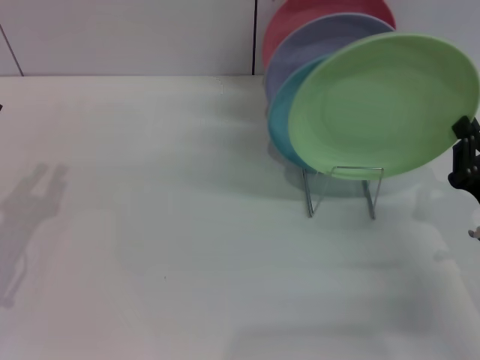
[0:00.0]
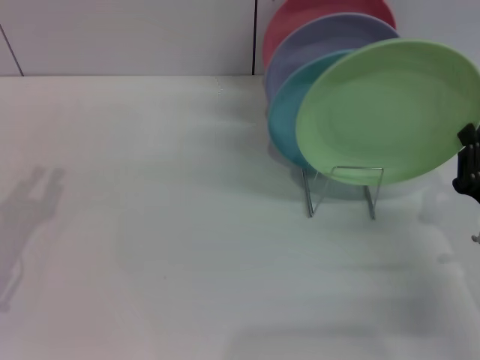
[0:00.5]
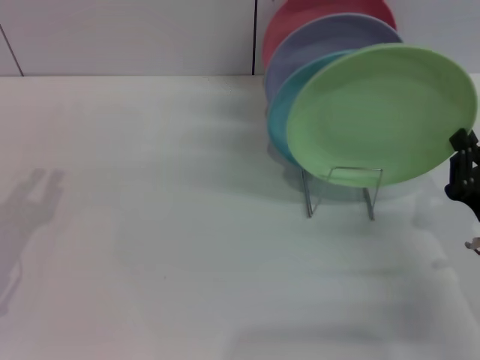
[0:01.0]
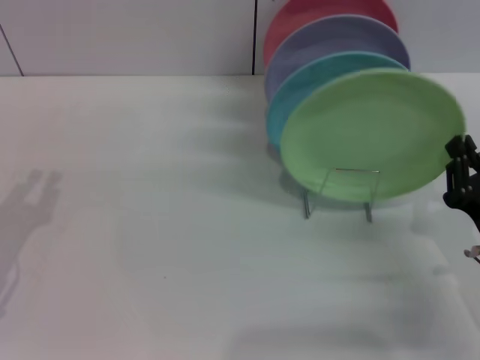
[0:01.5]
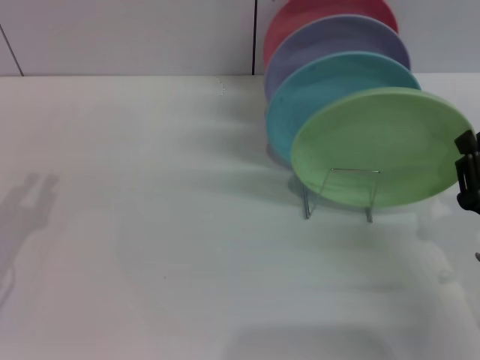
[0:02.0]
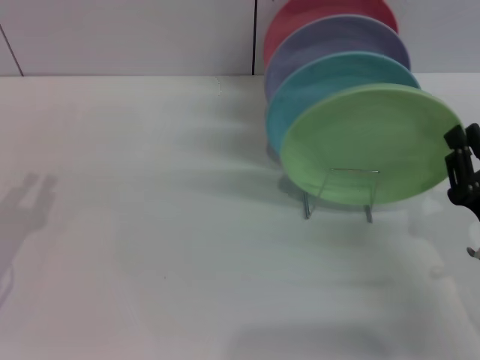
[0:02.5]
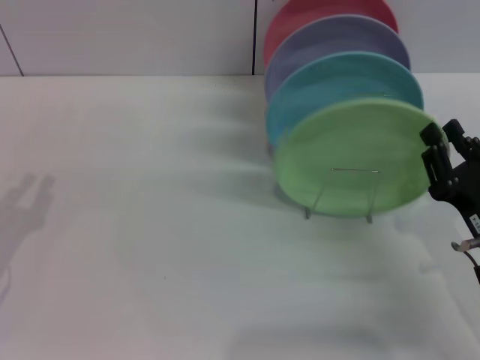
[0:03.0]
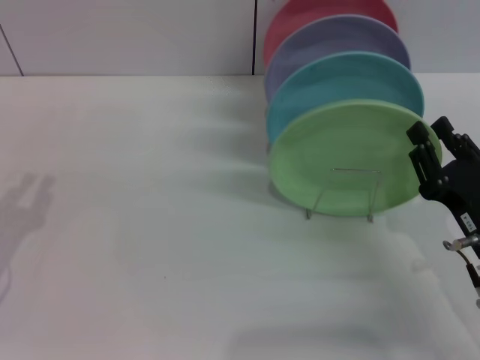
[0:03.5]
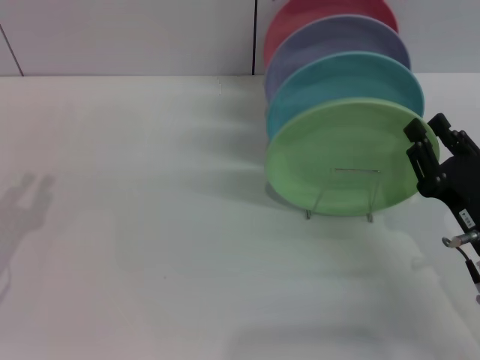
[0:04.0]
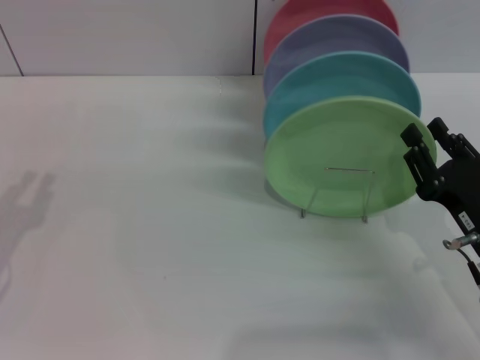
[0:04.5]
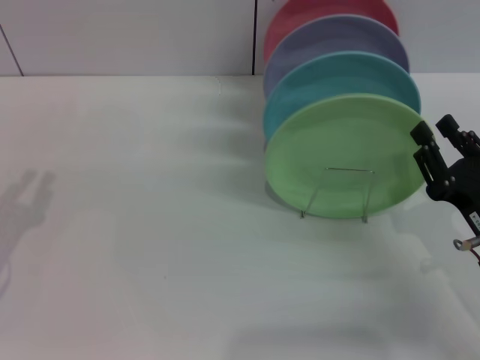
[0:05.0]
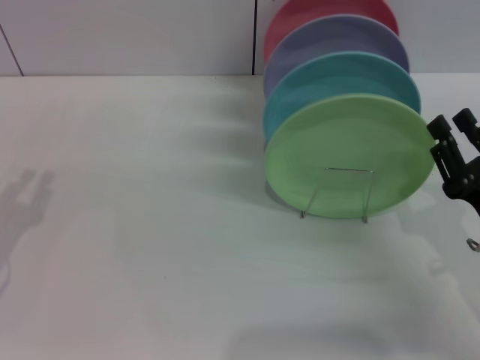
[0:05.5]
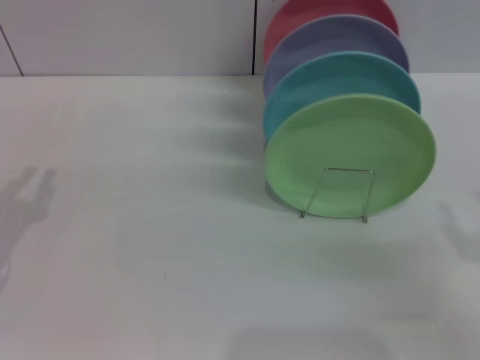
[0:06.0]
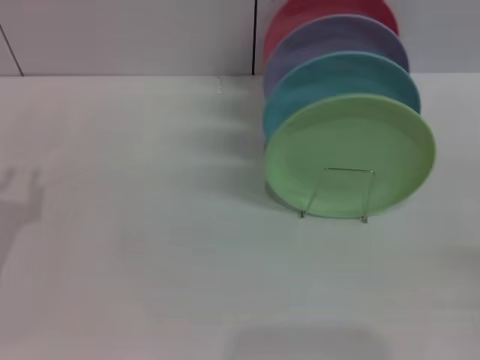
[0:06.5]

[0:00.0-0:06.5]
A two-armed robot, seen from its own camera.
Task of the whole recording: Grip the plate with one hand, pass it to the other, then set it on the shelf.
Step, 0:00.0 to 0:05.5: Place the plate on the shelf with the right gripper.
0:00.0 to 0:02.0: There are only small adjustments of the grippers.
0:02.0 to 0:04.5: The right gripper opens.
0:04.5 to 0:06.5: The right gripper heads to the right and backward, covering some 15 cm, and opens up.
